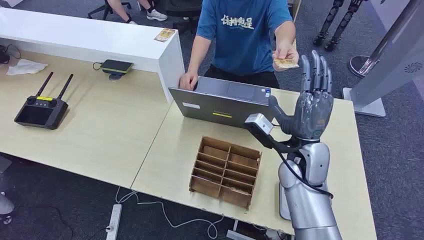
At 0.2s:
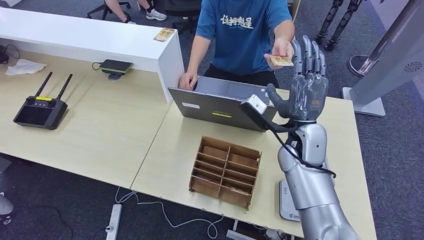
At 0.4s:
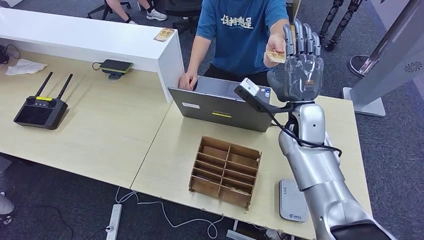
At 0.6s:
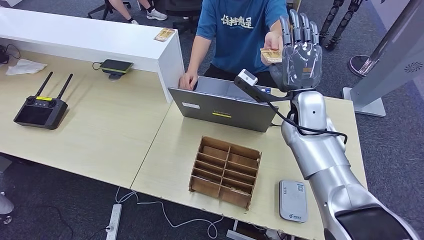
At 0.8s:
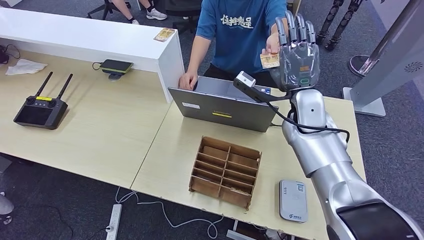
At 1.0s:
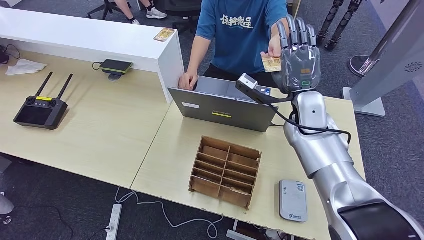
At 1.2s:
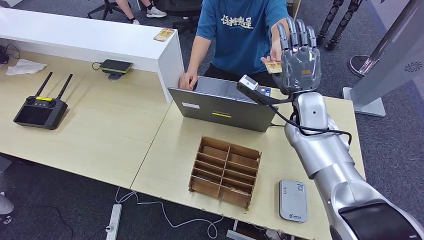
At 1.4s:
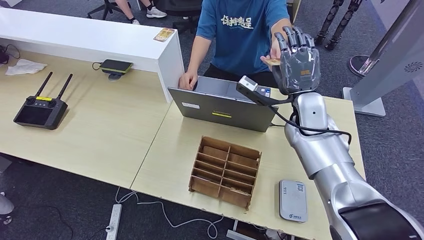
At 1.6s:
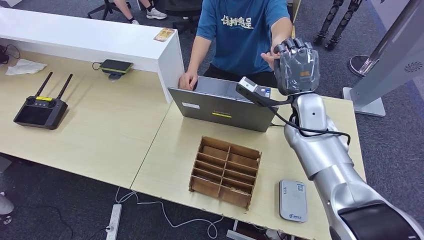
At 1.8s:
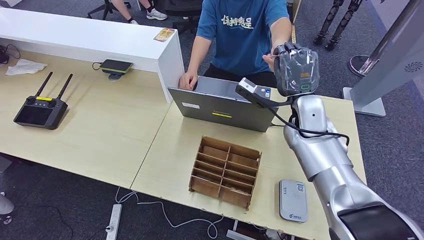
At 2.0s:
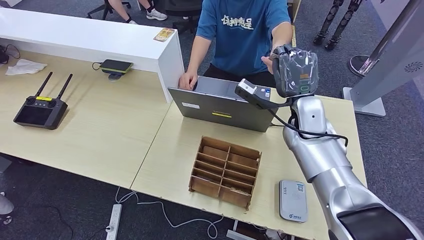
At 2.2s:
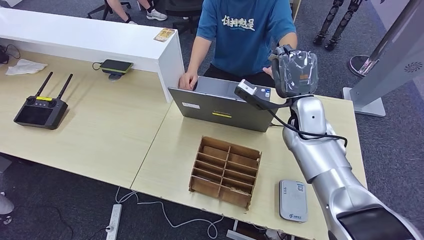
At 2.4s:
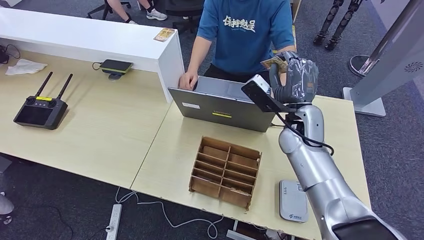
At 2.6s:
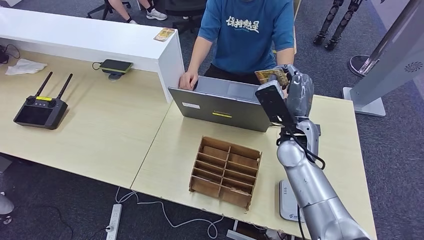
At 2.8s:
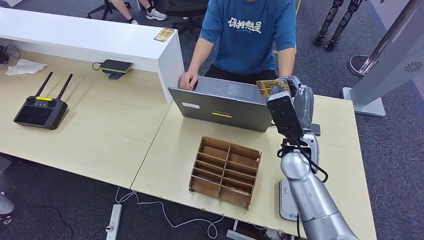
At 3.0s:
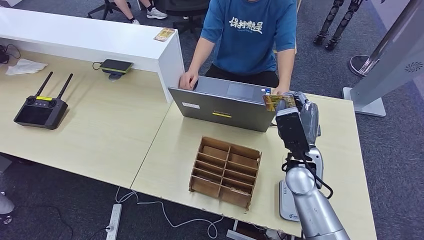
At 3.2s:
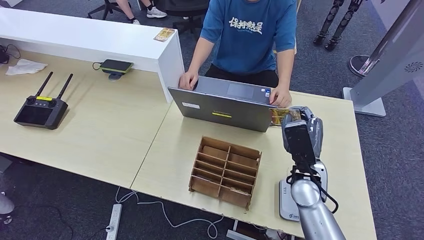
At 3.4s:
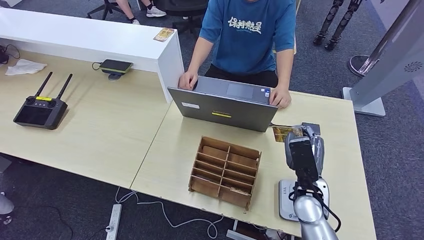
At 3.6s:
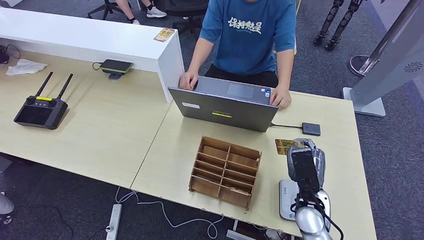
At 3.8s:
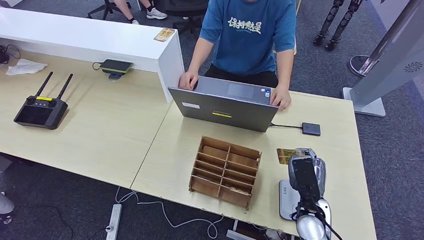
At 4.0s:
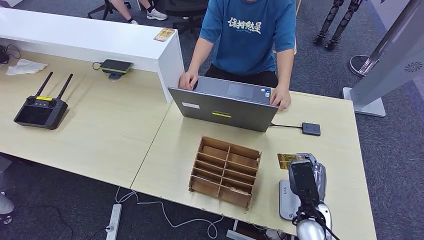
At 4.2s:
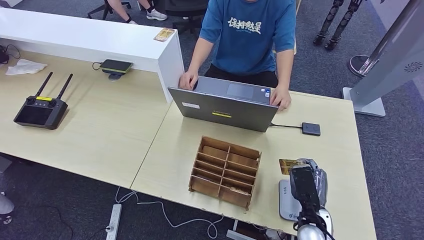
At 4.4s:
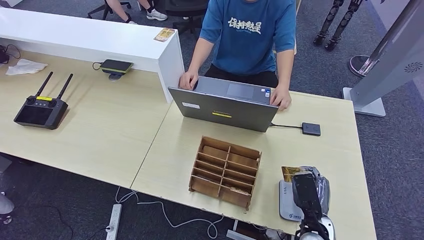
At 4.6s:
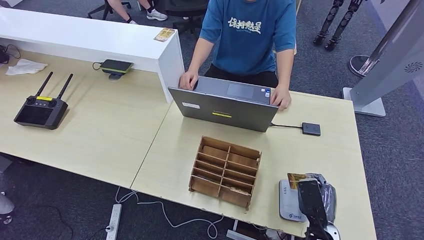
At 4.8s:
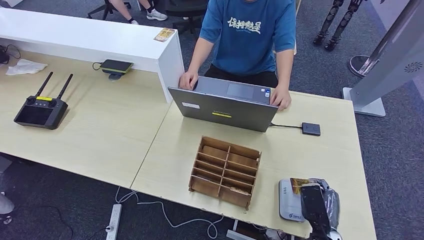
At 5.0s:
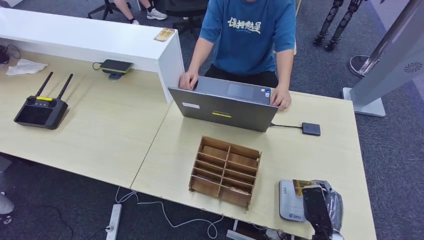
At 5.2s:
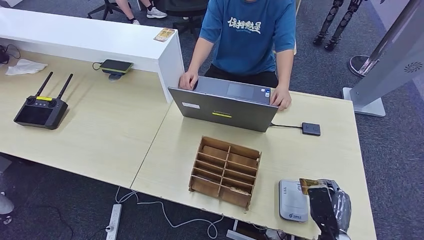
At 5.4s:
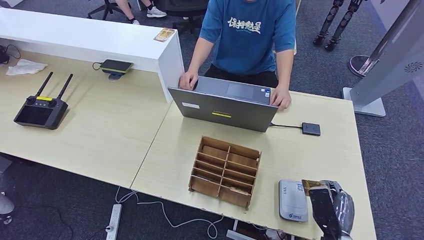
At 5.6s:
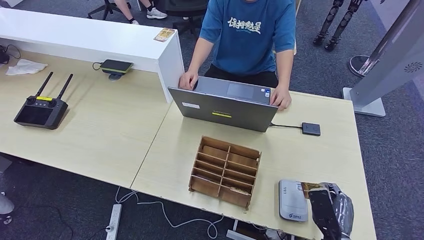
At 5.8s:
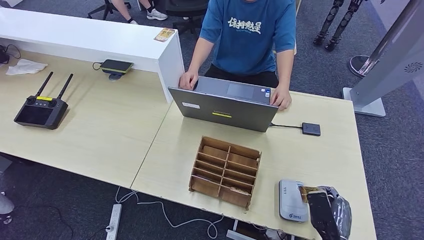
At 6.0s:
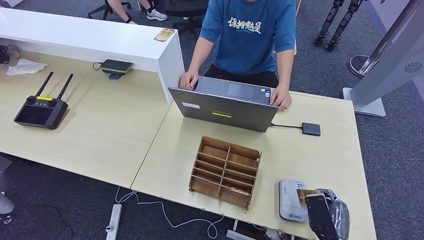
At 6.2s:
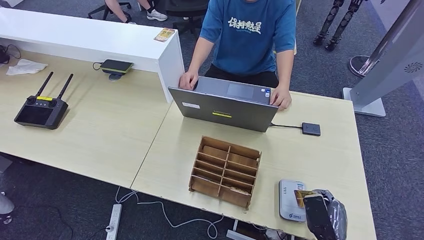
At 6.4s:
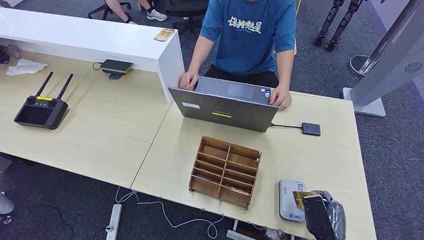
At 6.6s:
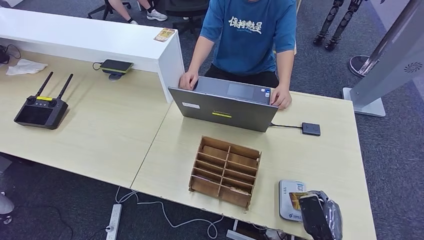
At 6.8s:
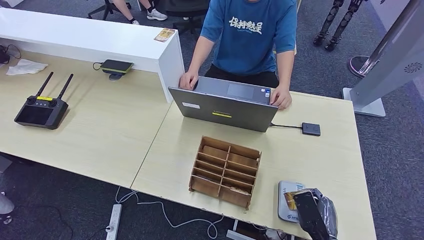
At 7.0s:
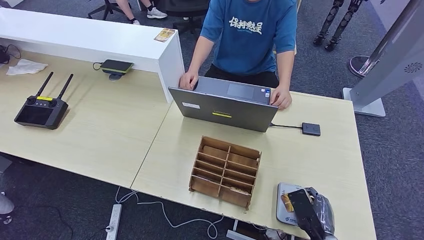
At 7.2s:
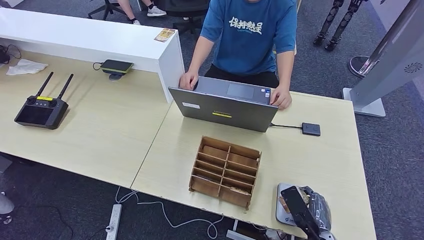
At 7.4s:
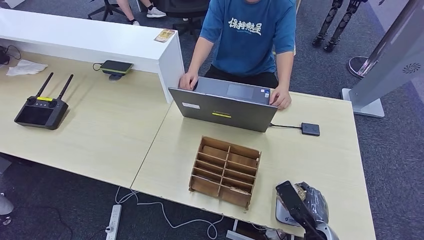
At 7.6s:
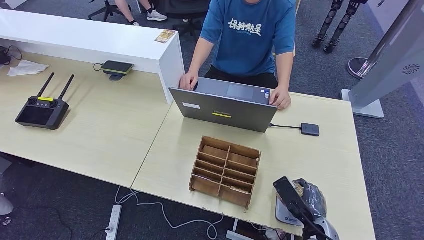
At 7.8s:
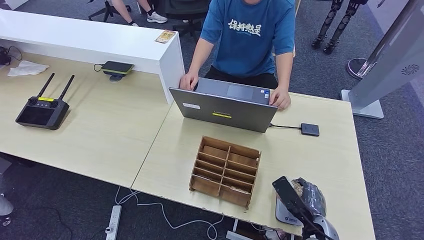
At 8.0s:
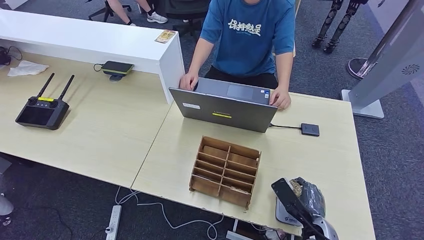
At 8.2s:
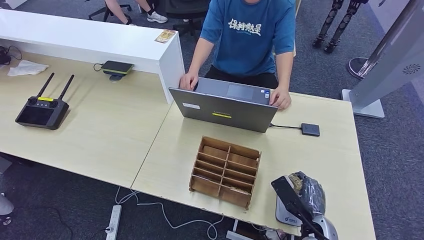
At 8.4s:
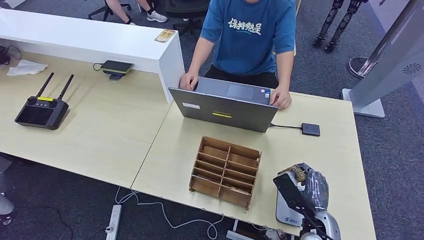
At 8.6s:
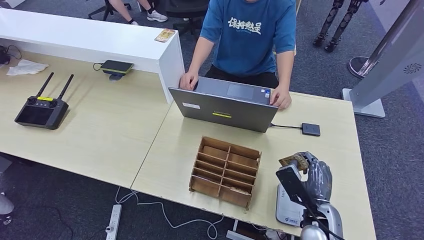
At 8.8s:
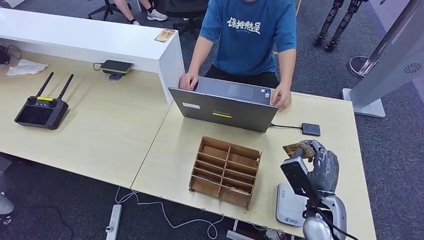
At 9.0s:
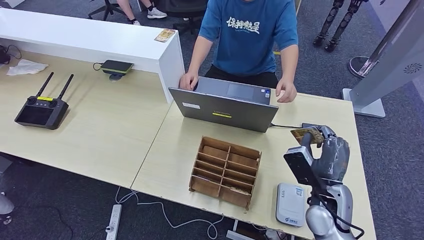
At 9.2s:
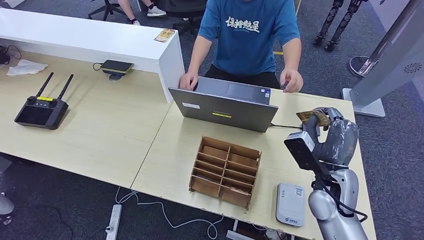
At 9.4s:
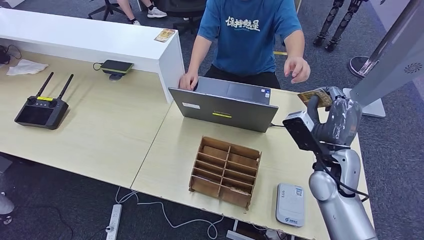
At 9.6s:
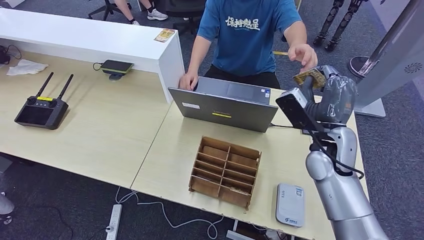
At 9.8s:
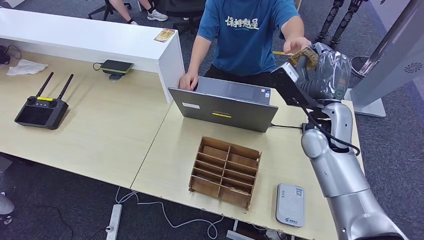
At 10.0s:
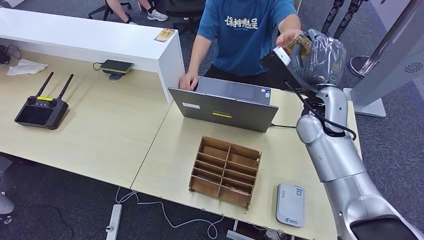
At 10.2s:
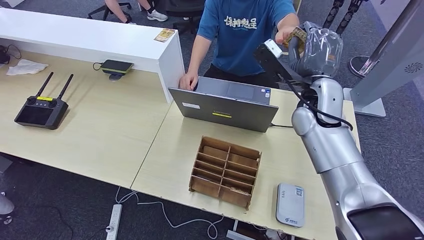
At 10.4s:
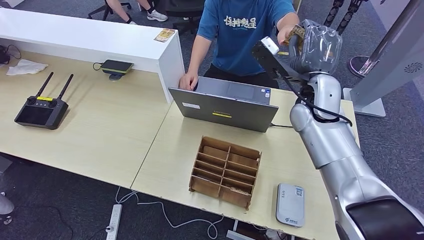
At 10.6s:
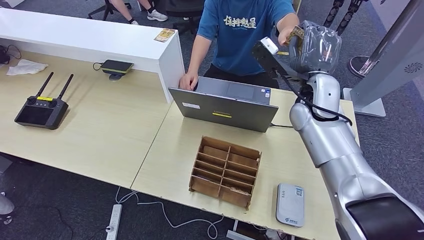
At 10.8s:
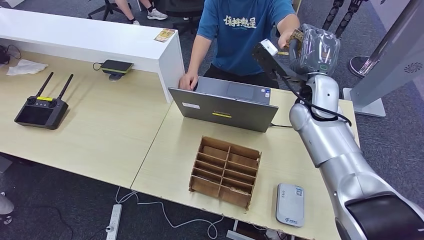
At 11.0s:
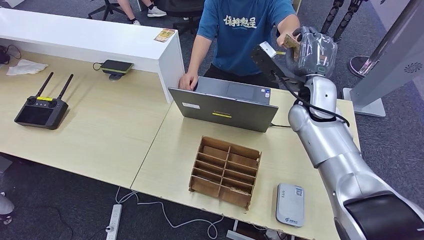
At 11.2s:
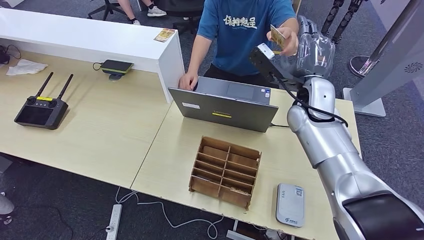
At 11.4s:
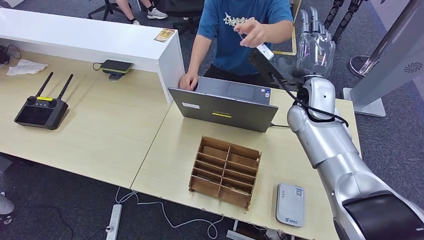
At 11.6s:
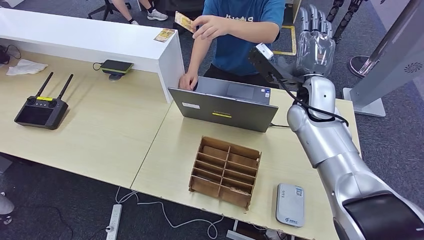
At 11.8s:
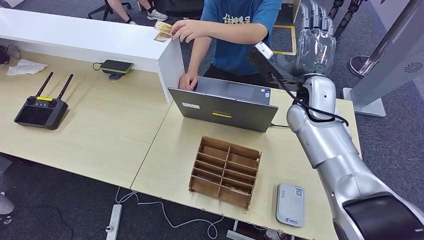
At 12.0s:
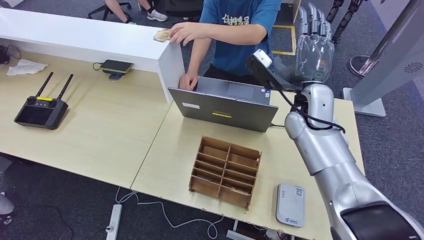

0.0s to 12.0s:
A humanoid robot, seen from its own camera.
Step, 0.0s to 2.6s: Take the ID card from the person's hand.
Step, 2.8s to 8.6s: Place the ID card on the card reader.
1.6s to 3.0s: The left hand shifts by about 5 cm. Meanwhile the right hand goes some 10 cm backward and downward.
3.0s to 4.4s: The right hand shifts about 20 cm downward, backward and to the right.
4.4s to 6.0s: The right hand moves backward, about 5 cm.
6.0s to 7.6s: The right hand ends up roughly 5 cm from where it was.
7.6s to 9.0s: The right hand heads upward and forward, covering approximately 10 cm.
9.0s to 10.4s: The right hand shifts roughly 25 cm upward, forward and to the left.
10.4s to 12.0s: The hands stay close to where they were, moving slightly.

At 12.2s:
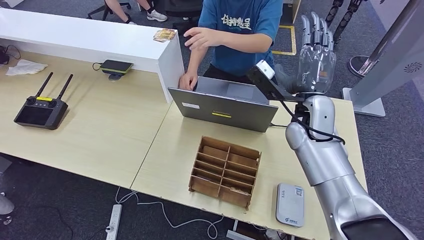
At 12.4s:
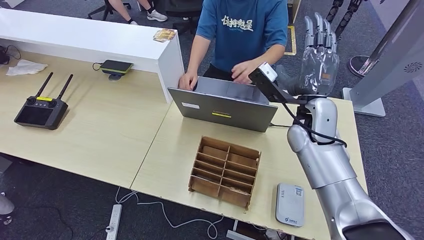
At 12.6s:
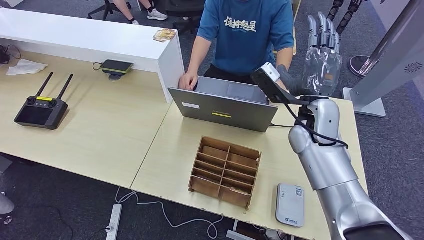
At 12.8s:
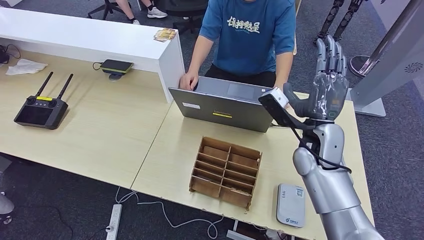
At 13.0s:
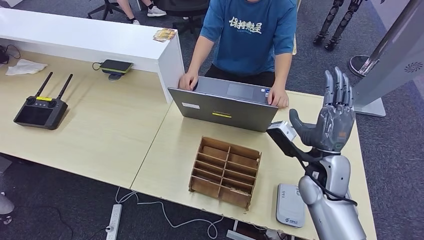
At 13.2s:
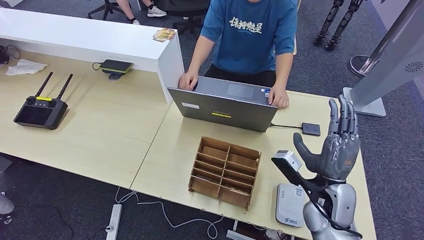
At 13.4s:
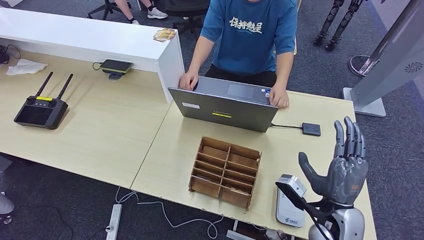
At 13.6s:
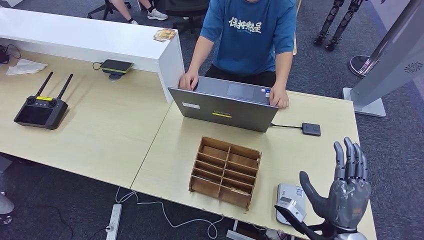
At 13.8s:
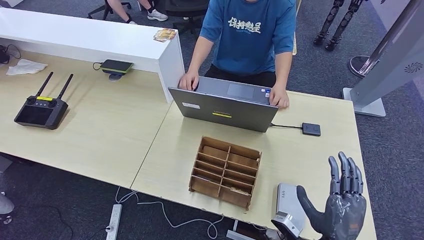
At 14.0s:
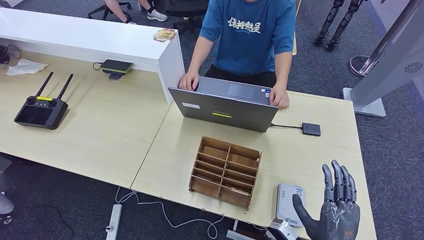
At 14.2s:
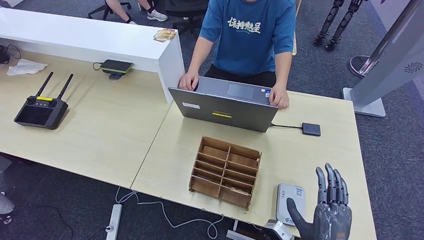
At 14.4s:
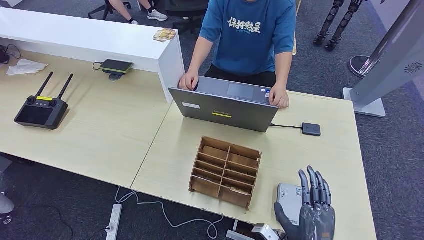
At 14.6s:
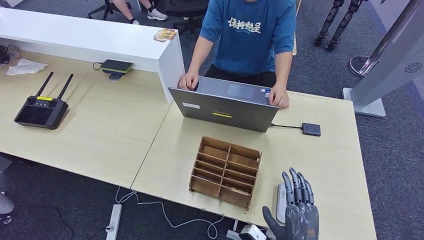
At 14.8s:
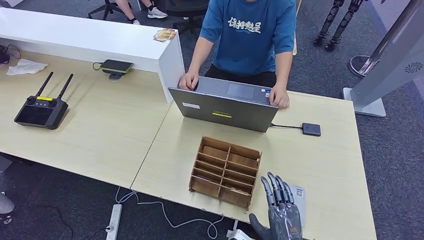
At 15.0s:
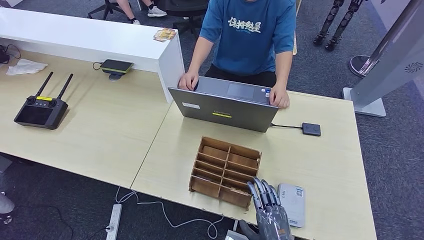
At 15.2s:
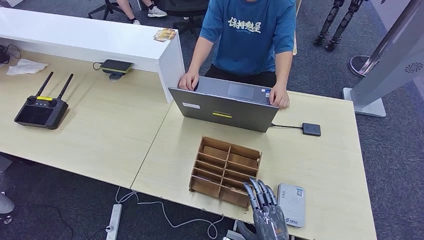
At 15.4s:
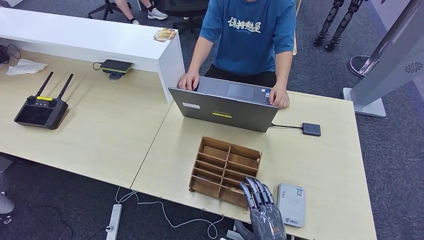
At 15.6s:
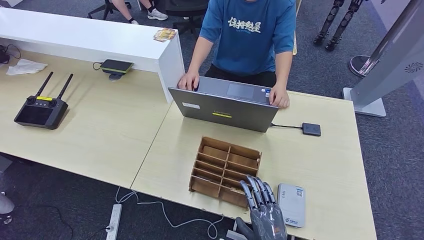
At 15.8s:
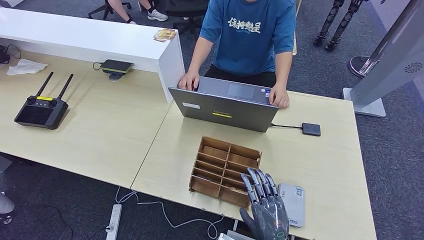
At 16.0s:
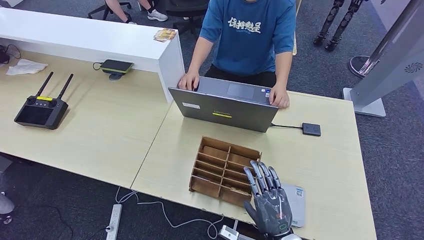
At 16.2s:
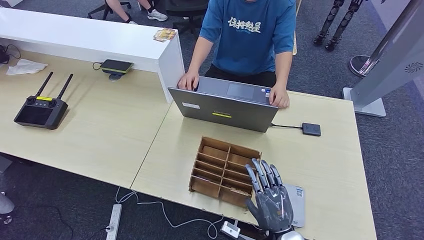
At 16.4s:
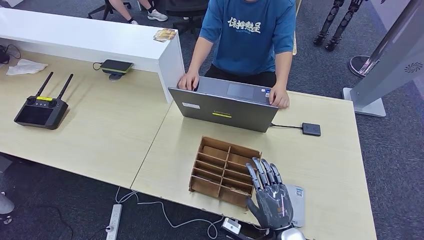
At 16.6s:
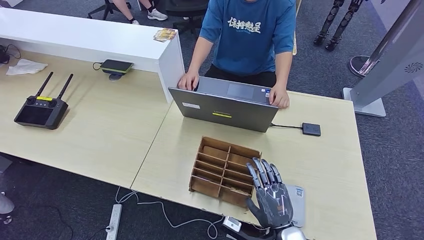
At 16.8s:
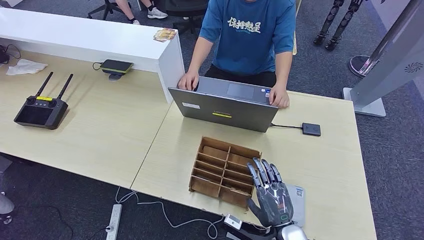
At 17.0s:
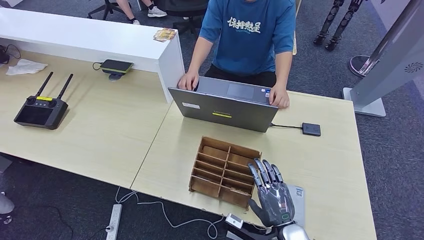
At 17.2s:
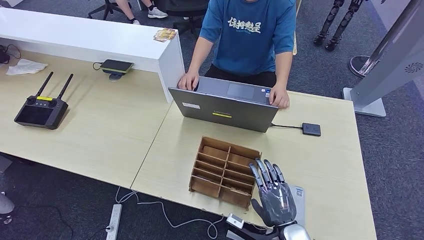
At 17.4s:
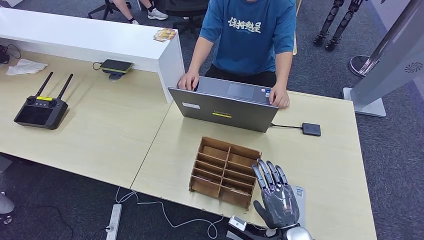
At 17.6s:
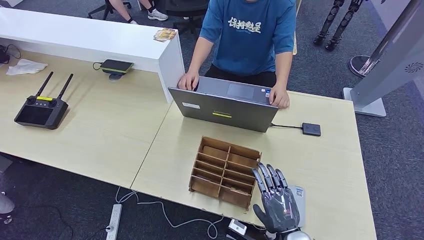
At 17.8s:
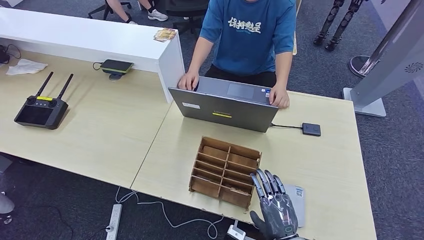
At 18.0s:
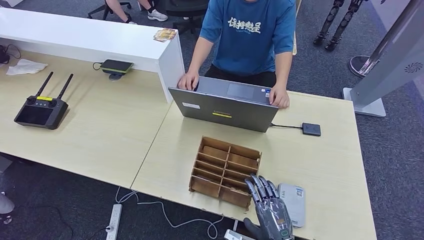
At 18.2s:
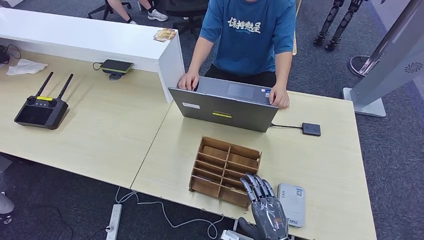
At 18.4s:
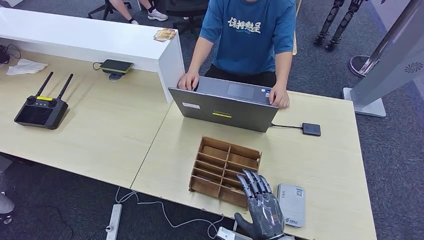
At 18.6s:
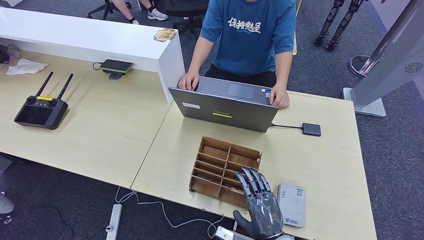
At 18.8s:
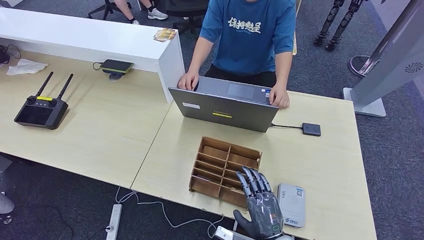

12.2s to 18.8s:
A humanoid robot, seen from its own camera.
12.2s to 13.8s: The right hand heads backward and downward, covering approximately 30 cm.
13.8s to 15.4s: The right hand moves to the left and downward, approximately 10 cm.
15.4s to 17.2s: The right hand goes roughly 5 cm forward.
17.2s to 18.8s: There are only small adjustments of the hands.
